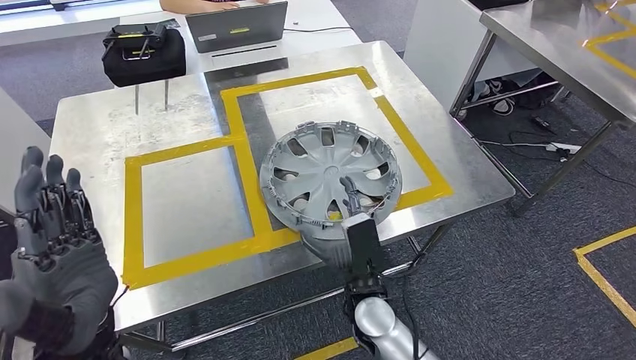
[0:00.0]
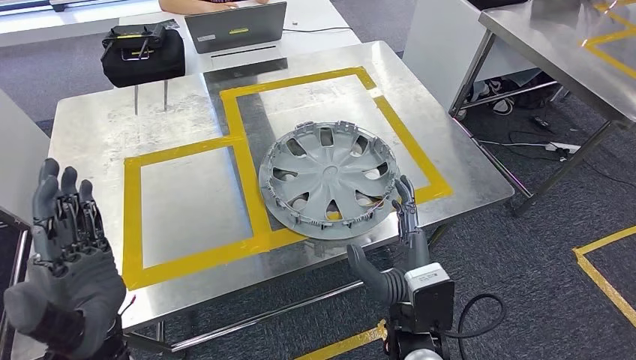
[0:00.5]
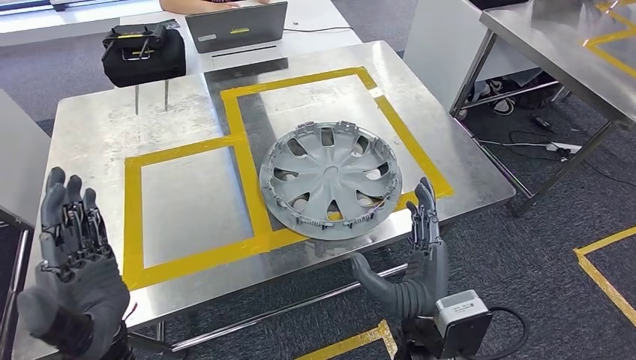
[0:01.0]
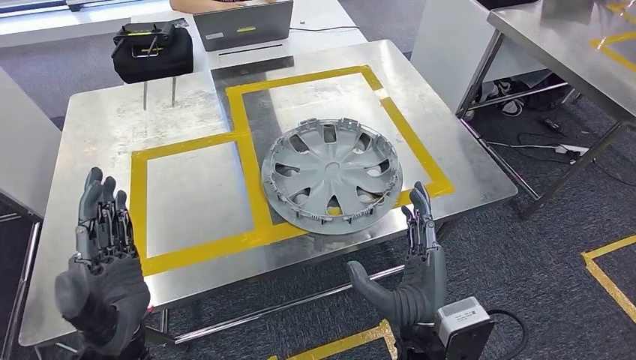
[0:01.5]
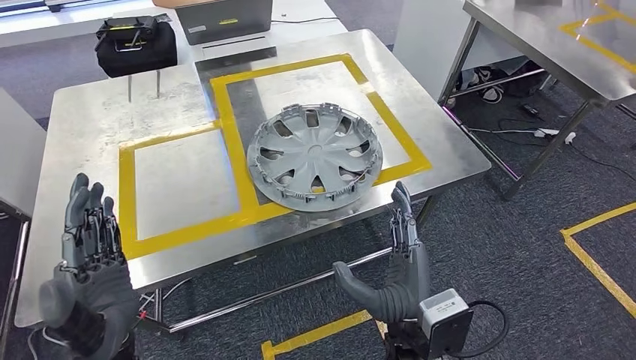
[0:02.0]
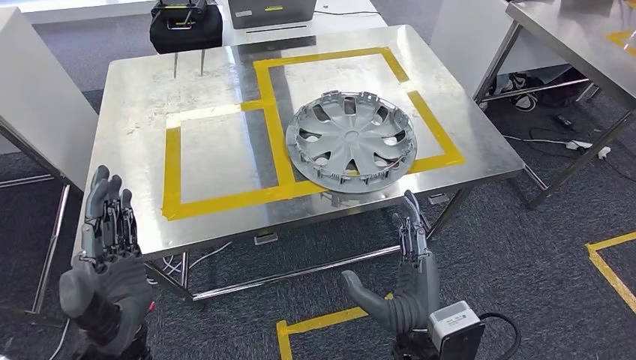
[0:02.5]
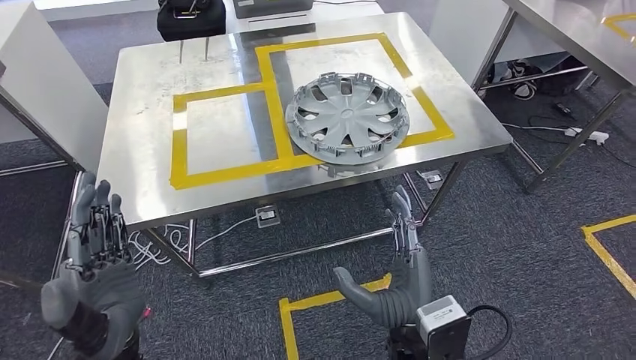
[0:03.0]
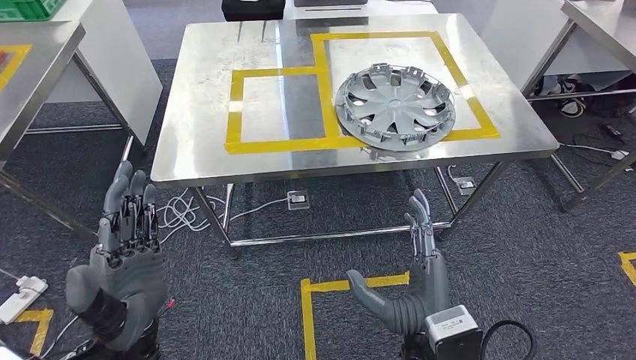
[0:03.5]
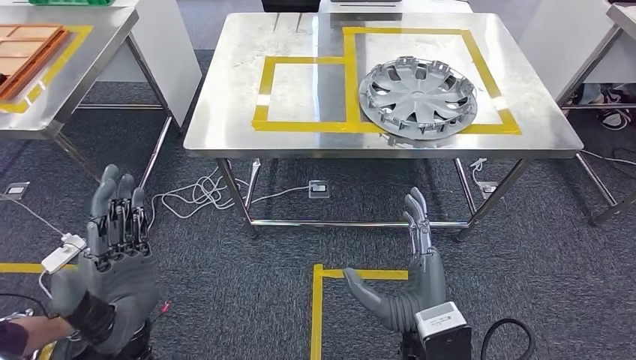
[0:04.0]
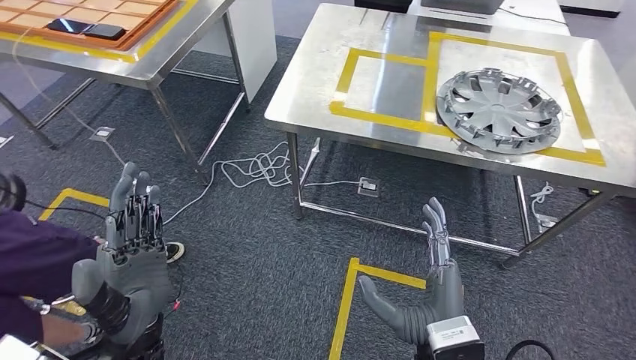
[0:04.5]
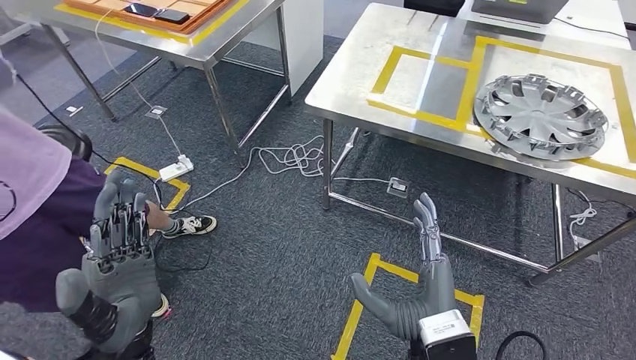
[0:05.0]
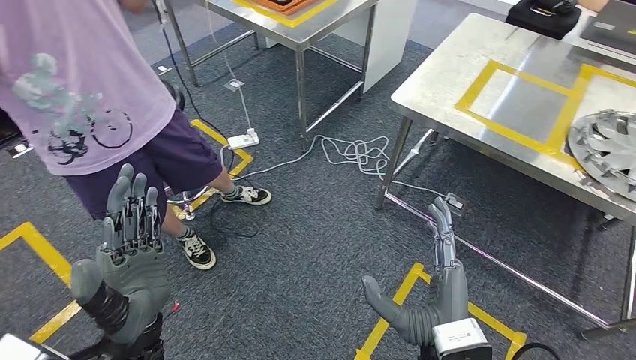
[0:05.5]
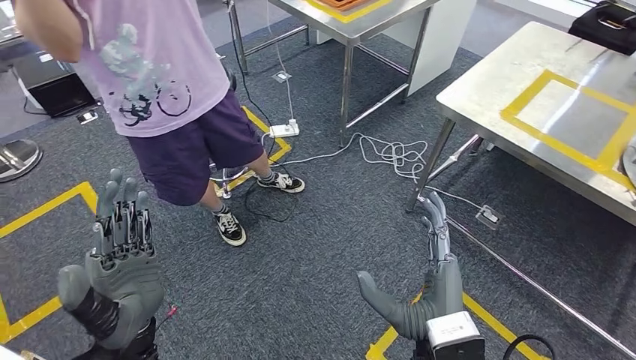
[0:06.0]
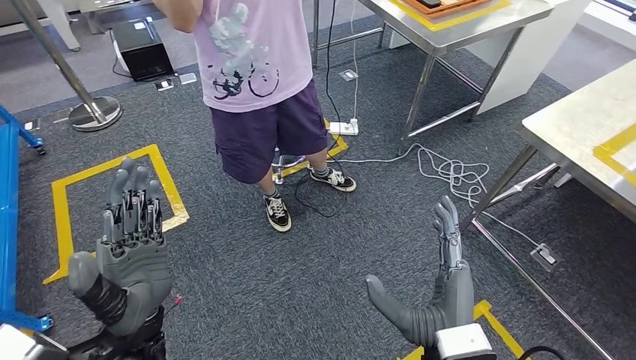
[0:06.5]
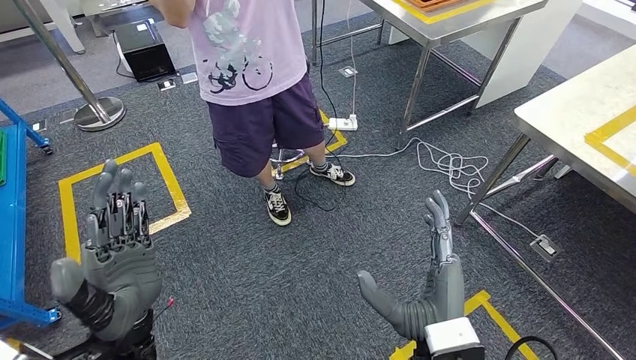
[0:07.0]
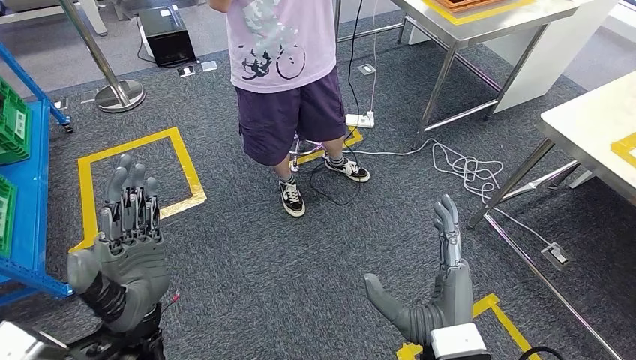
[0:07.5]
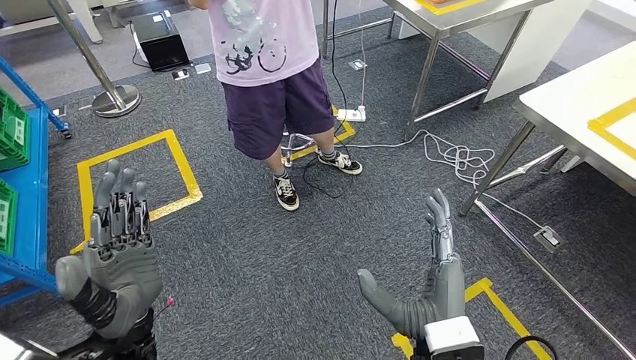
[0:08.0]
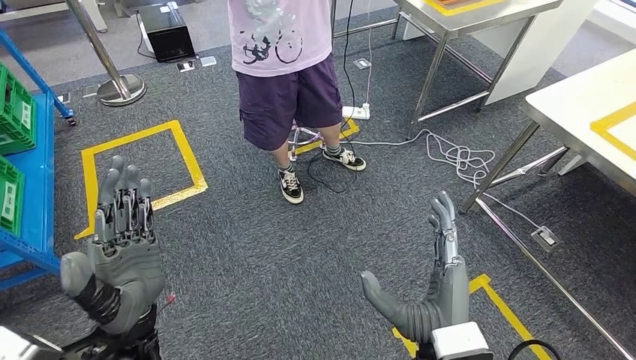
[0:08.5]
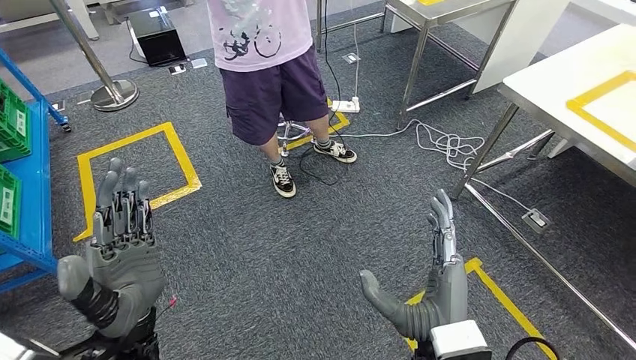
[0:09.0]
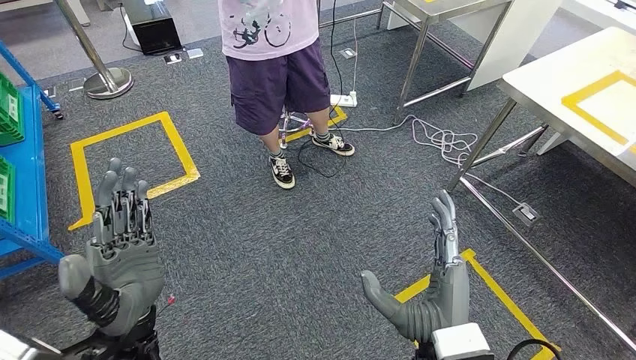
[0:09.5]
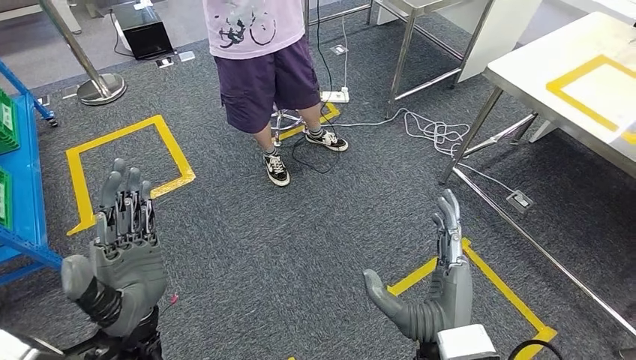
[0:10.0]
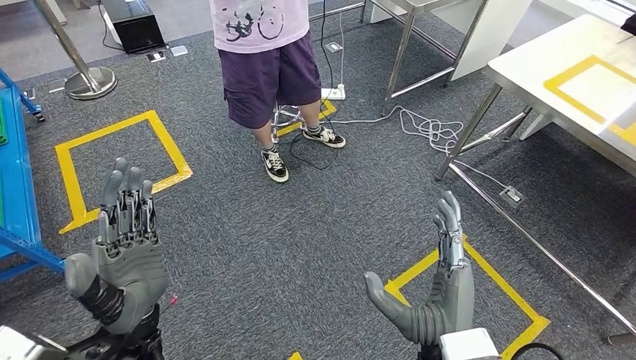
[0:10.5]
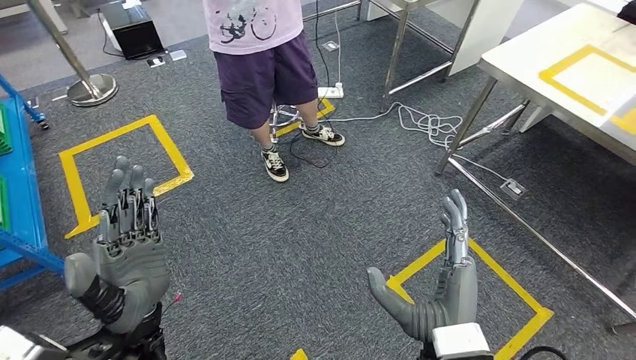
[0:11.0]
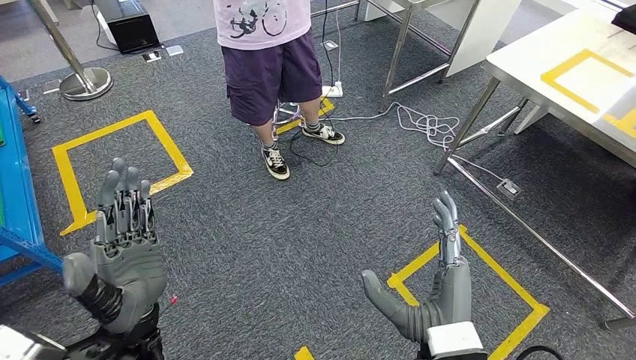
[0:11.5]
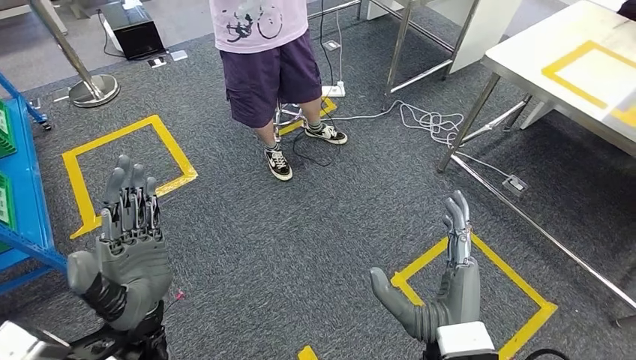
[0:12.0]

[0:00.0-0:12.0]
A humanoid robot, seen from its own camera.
Step, 0:00.0 to 0:03.5: Insert the small component into the corresponding slot on the workbench.

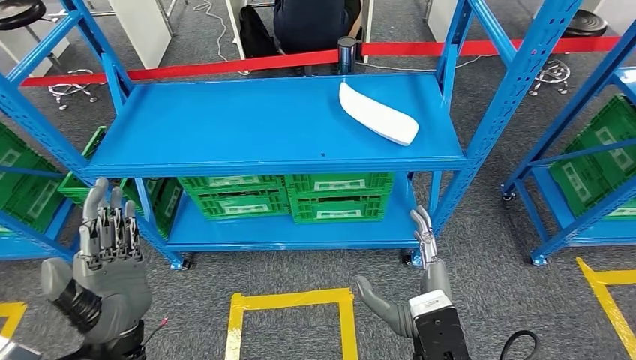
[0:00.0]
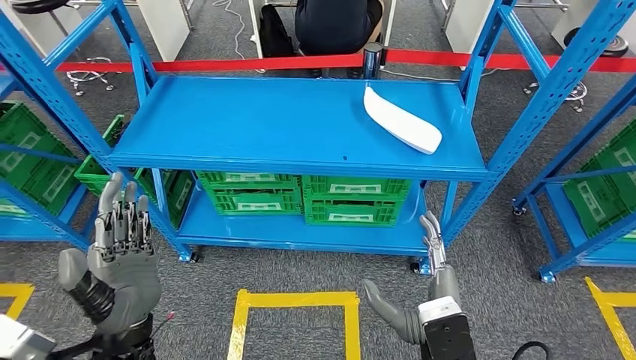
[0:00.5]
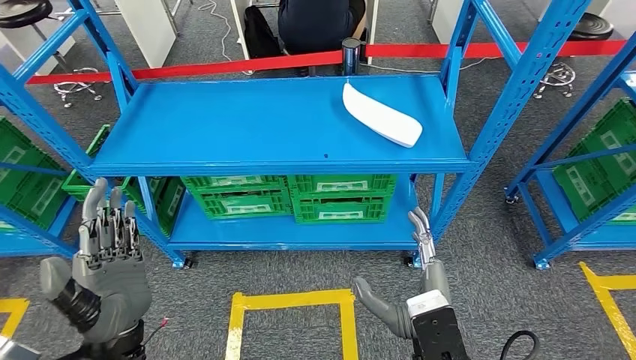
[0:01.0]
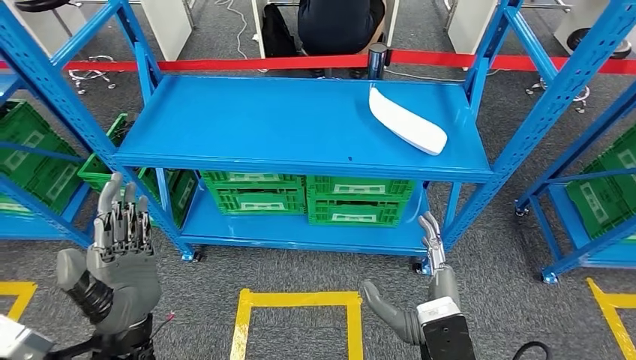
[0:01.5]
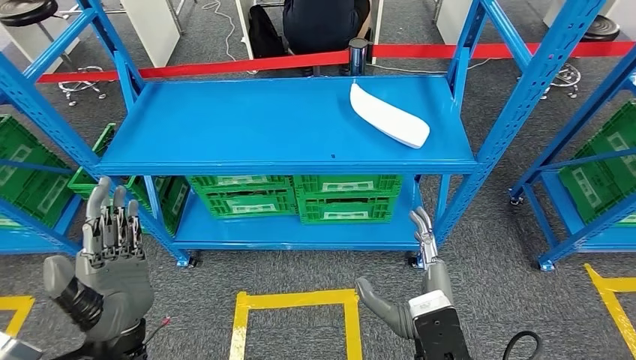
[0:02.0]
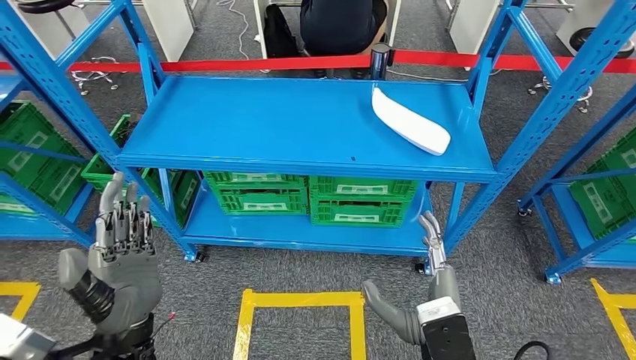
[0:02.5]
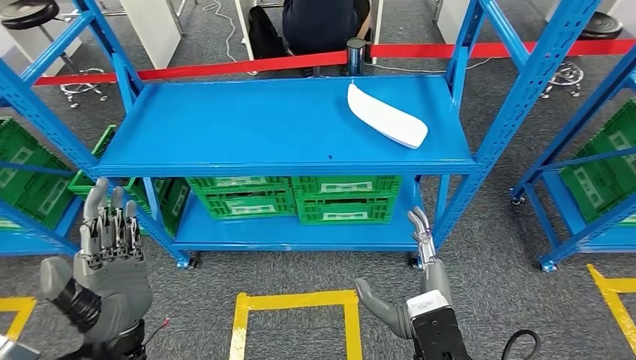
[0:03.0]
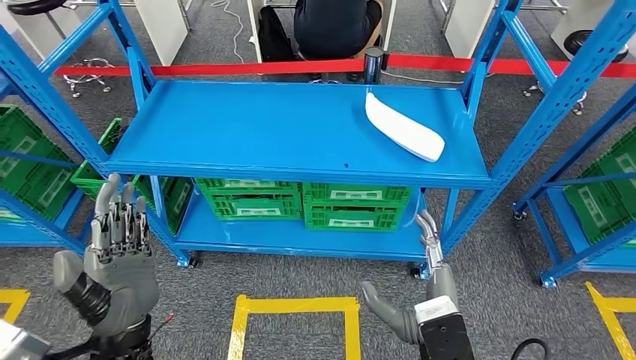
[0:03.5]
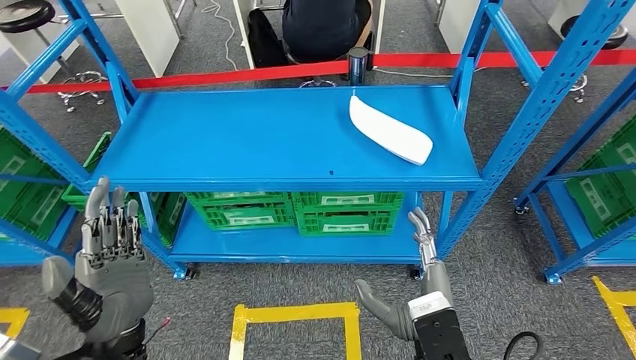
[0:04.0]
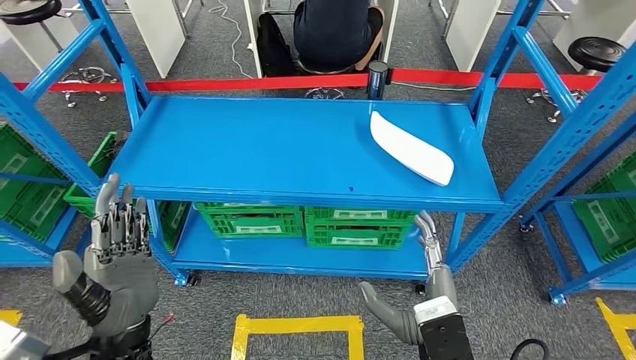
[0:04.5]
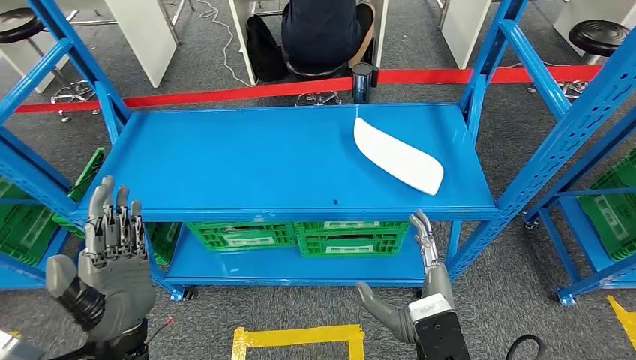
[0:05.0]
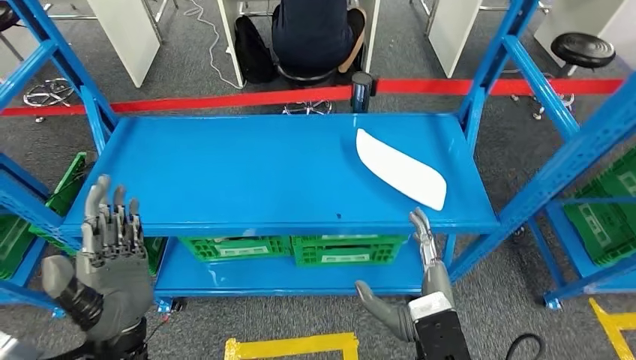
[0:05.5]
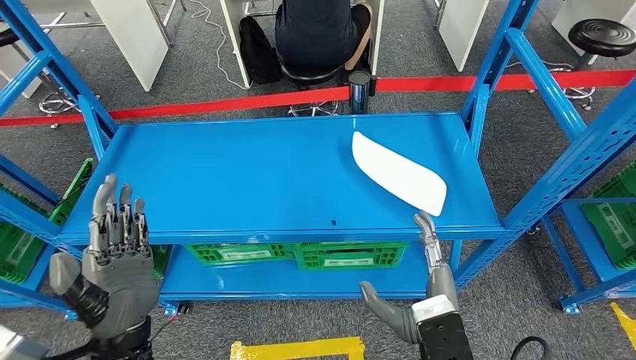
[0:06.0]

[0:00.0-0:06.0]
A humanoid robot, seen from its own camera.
Step, 0:00.0 to 0:06.0: Move to the initial position of the workbench.
